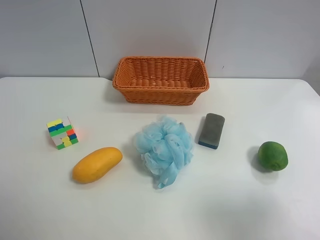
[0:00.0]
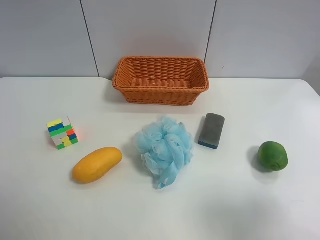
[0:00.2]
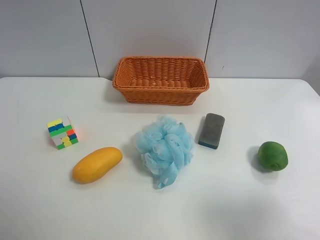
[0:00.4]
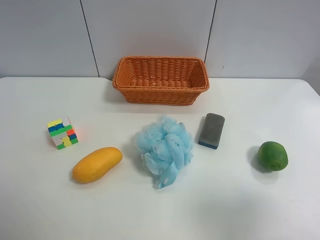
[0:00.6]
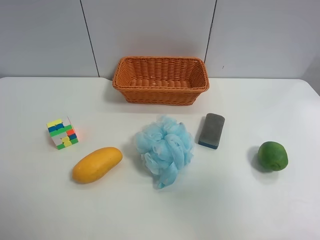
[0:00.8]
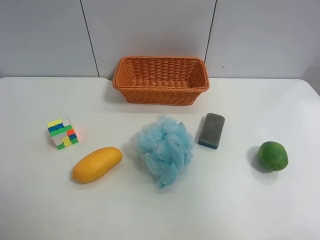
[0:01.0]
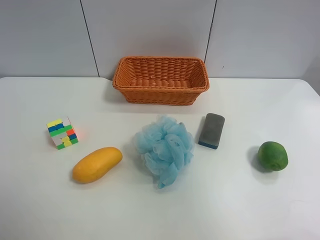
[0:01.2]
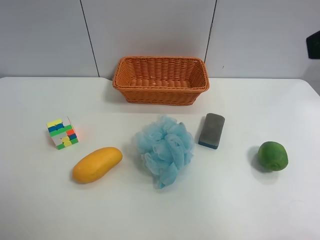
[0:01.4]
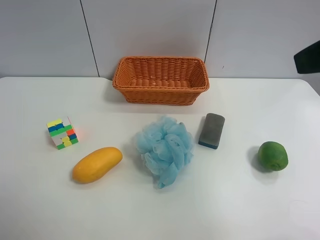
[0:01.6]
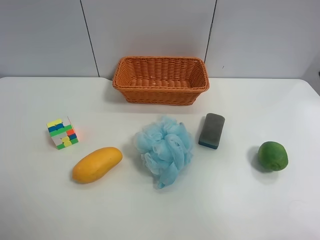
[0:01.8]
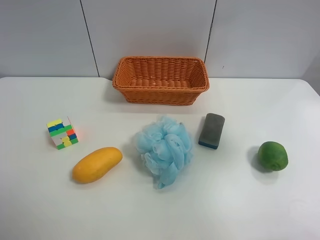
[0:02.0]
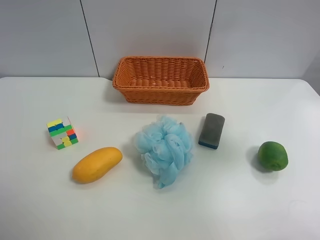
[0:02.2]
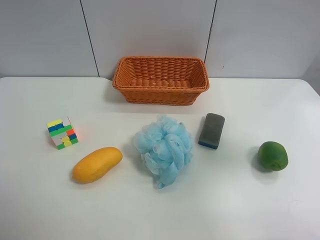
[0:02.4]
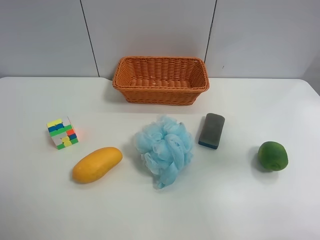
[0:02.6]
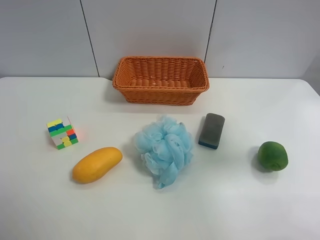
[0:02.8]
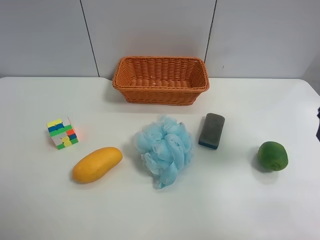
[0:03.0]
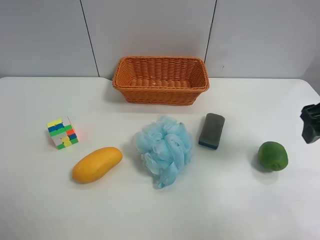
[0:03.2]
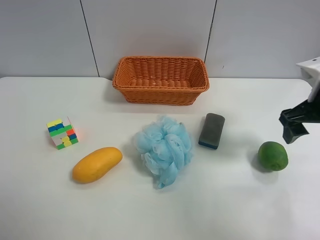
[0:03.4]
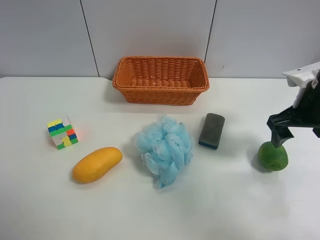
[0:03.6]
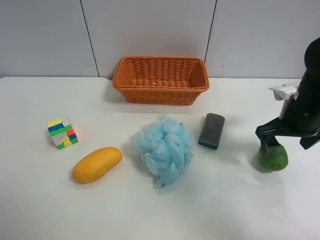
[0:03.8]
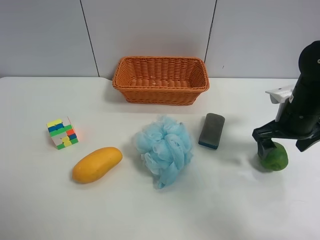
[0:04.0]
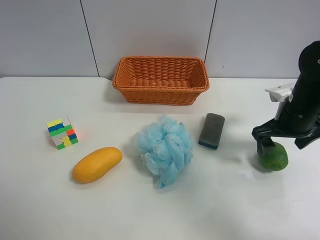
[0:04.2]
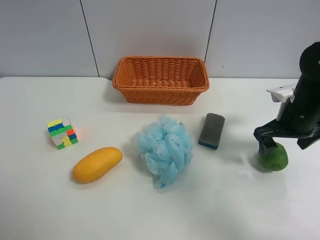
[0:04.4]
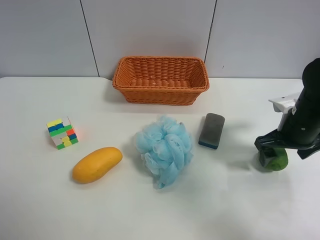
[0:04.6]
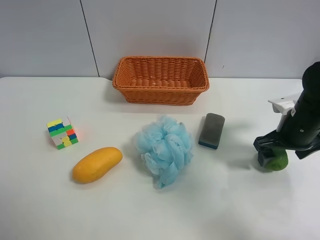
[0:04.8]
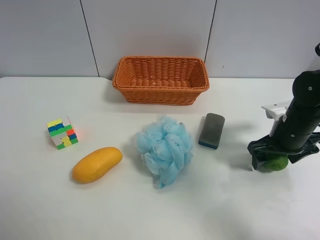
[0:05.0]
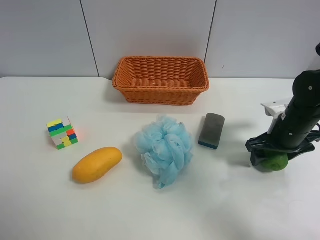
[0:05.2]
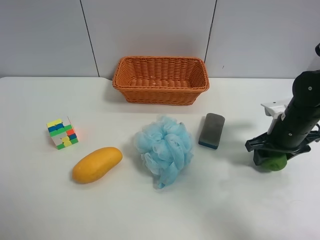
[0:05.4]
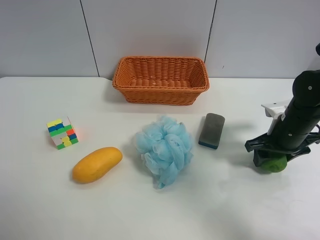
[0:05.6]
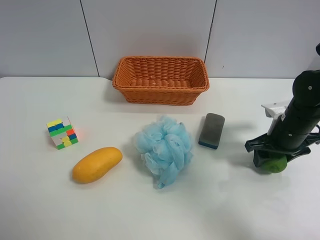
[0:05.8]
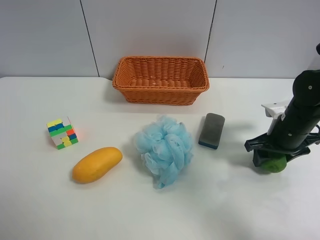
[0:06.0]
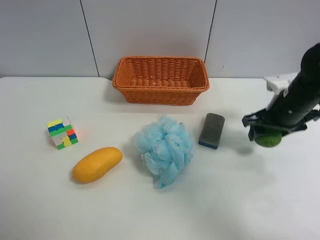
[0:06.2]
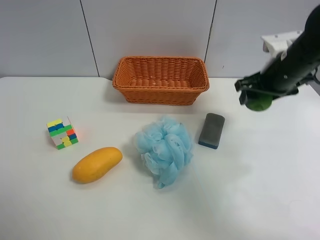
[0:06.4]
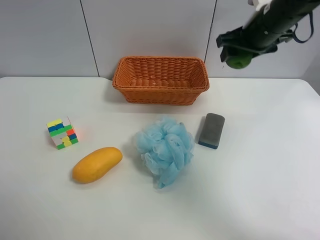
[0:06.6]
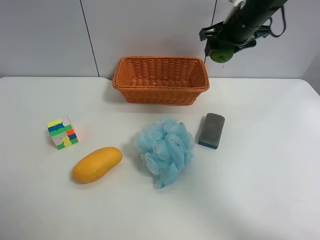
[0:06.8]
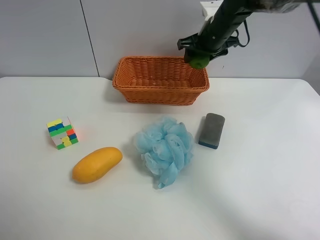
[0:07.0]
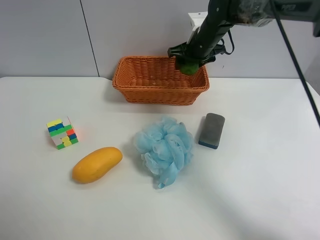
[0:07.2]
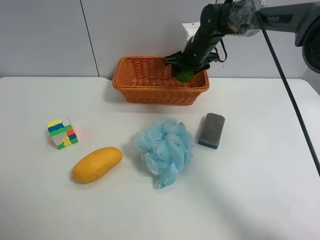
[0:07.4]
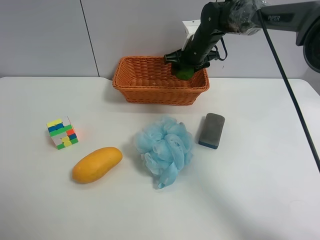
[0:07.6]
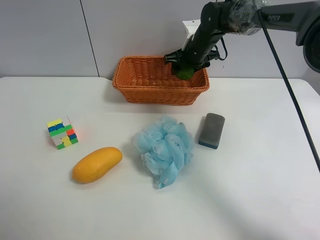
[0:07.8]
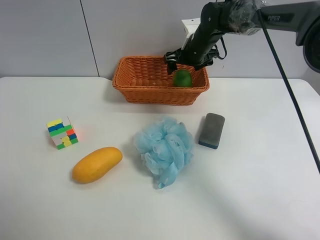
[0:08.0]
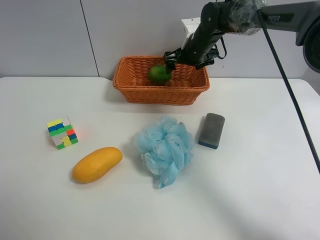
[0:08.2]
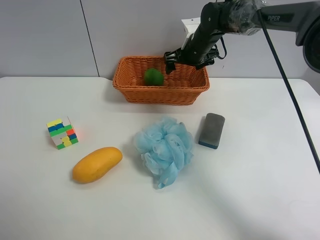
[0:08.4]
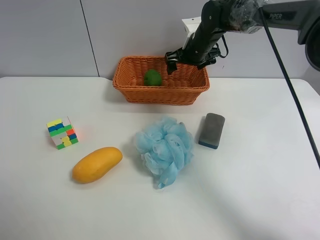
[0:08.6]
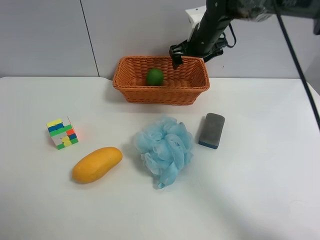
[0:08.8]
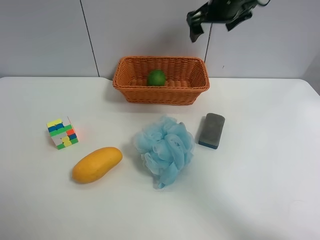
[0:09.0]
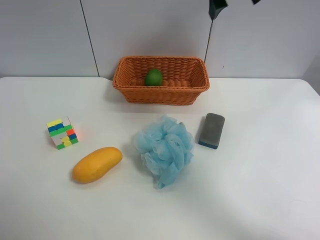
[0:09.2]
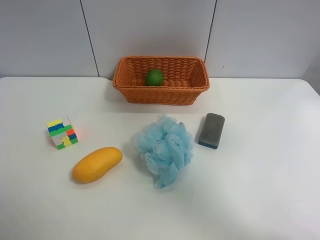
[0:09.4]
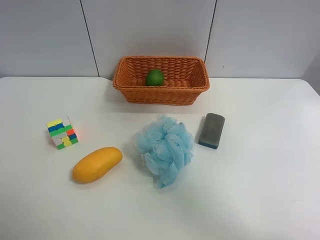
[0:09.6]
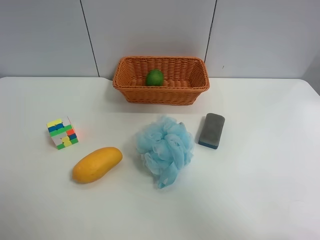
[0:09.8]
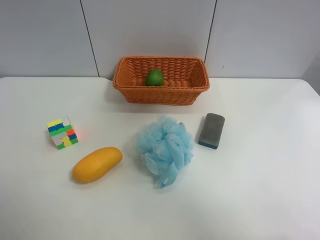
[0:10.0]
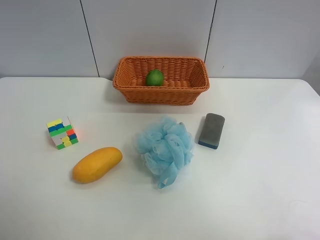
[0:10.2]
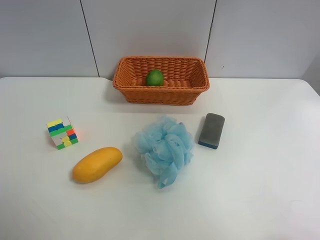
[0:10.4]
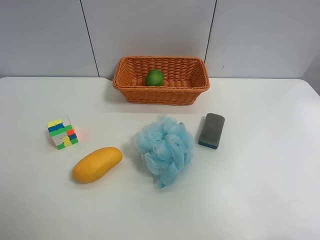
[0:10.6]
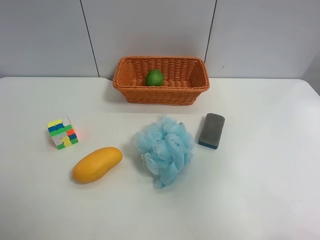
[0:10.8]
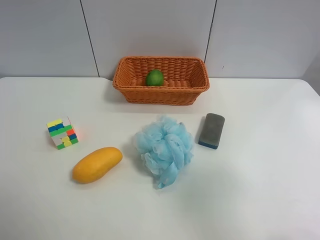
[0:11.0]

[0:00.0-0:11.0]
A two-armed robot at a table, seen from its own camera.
Task of the whole recording: Randomly grab green lemon or mangoes from the table and put them in a basket.
Step, 0:00.0 to 0:05.6: Grasp the Lemon with the right gripper.
Step, 0:05.8 to 0:08.8: Place the Lemon into the basket with the right gripper.
0:00.0 to 0:01.6: The right gripper is displaced forward and upward by roughly 20 cm.
0:01.6 to 0:03.2: The right gripper goes approximately 15 cm downward and forward.
0:03.2 to 0:04.8: The right gripper heads downward, covering some 15 cm.
0:04.8 to 0:06.2: The right gripper changes place by some 5 cm, and closes up.
0:06.2 to 0:07.8: The right gripper goes roughly 25 cm forward and to the left.
0:07.8 to 0:09.4: The right gripper travels upward and backward by roughly 30 cm, and opens.
0:09.4 to 0:11.0: The right gripper travels backward and downward by some 30 cm.
